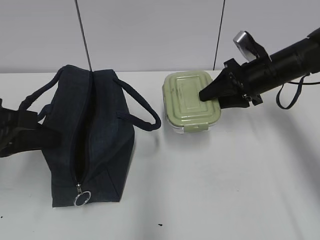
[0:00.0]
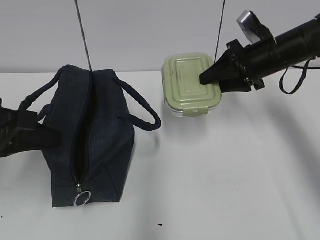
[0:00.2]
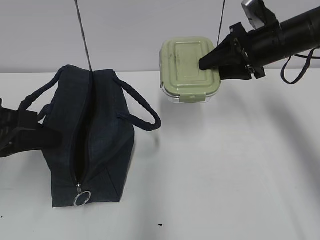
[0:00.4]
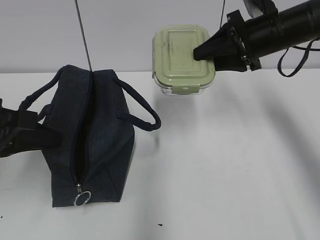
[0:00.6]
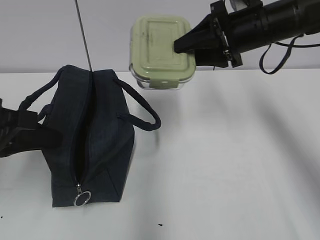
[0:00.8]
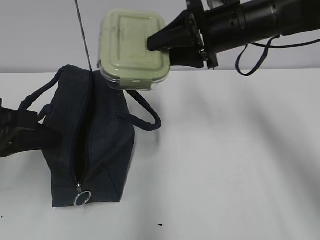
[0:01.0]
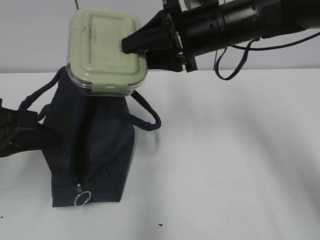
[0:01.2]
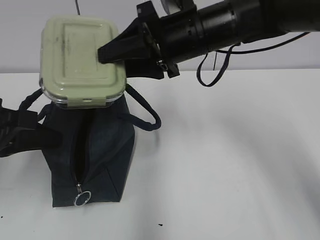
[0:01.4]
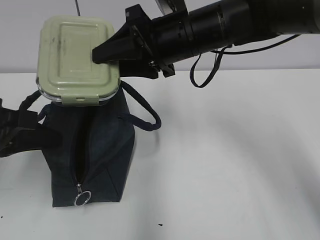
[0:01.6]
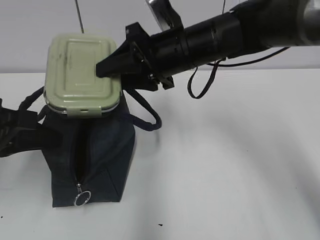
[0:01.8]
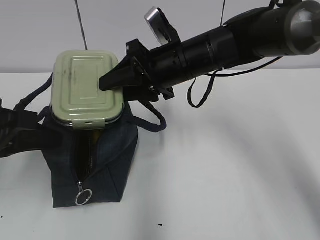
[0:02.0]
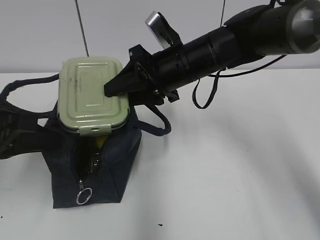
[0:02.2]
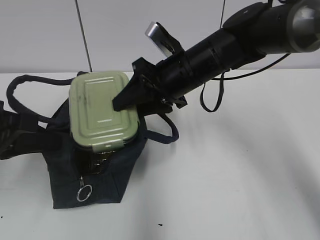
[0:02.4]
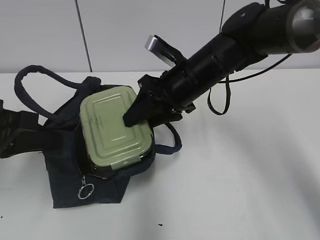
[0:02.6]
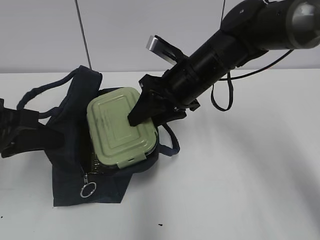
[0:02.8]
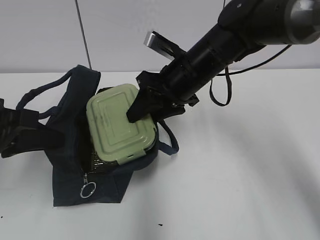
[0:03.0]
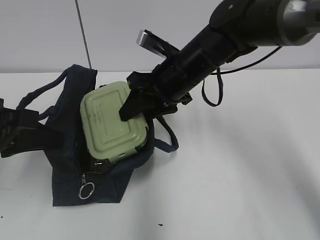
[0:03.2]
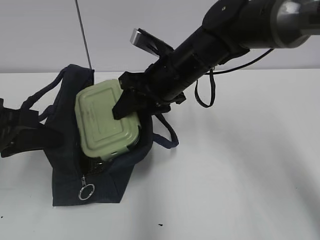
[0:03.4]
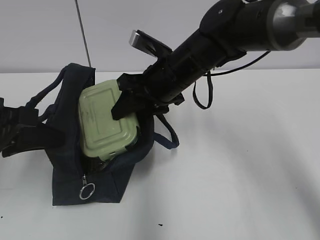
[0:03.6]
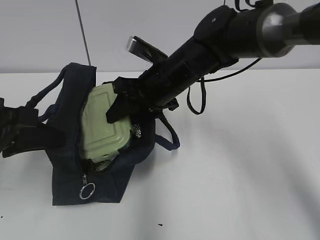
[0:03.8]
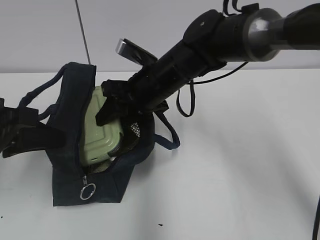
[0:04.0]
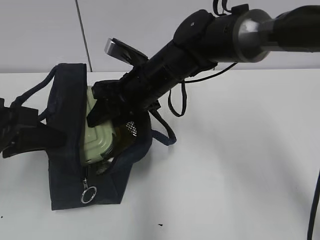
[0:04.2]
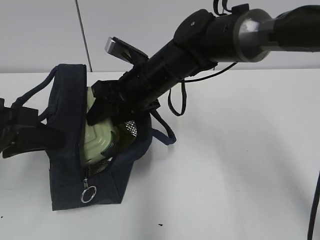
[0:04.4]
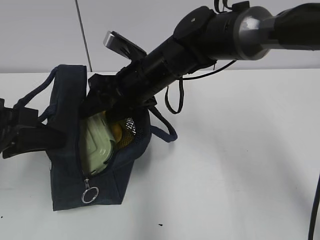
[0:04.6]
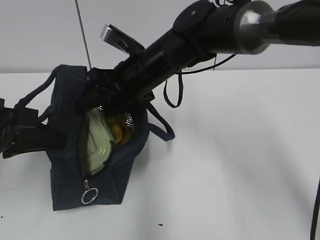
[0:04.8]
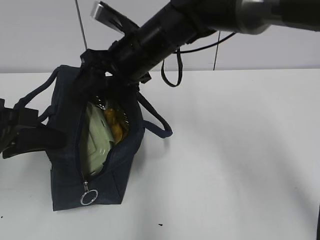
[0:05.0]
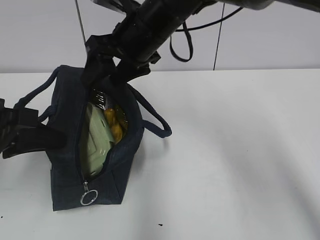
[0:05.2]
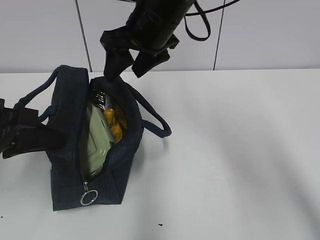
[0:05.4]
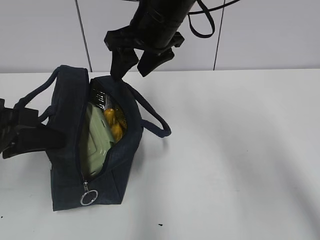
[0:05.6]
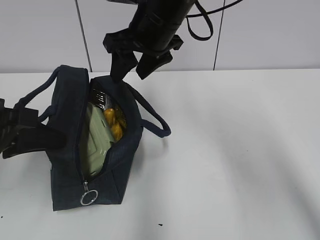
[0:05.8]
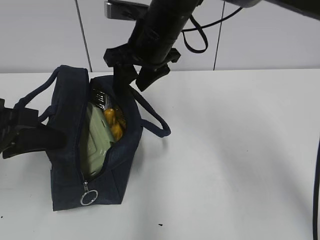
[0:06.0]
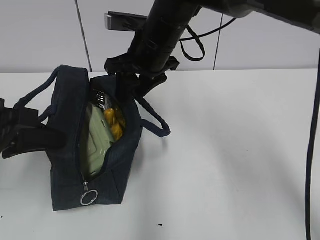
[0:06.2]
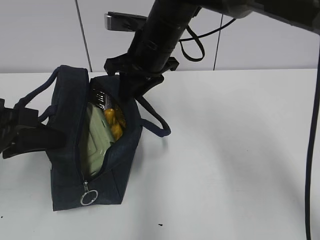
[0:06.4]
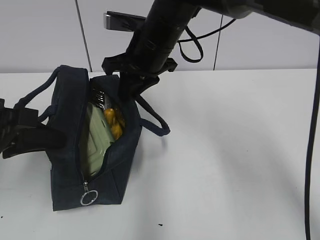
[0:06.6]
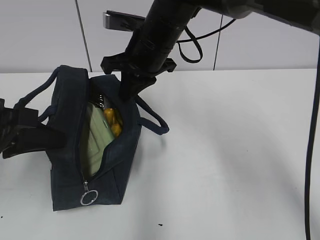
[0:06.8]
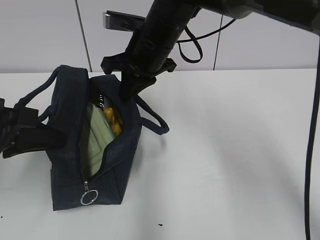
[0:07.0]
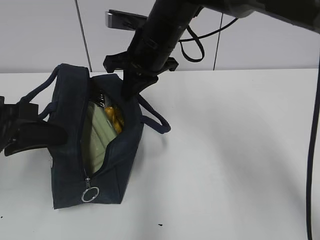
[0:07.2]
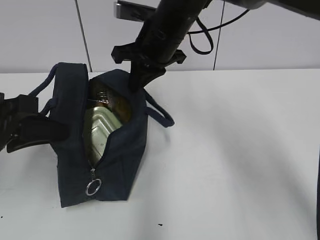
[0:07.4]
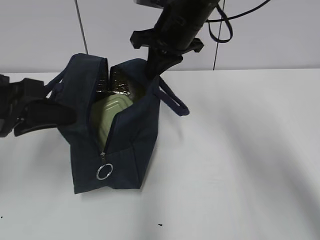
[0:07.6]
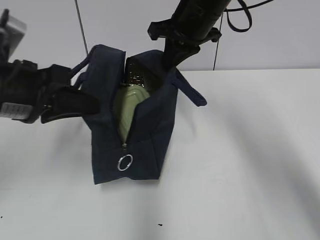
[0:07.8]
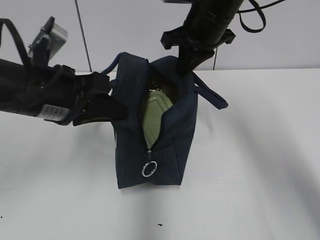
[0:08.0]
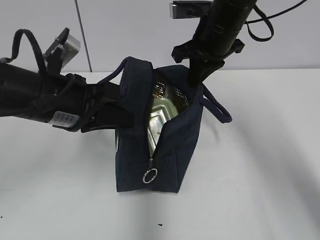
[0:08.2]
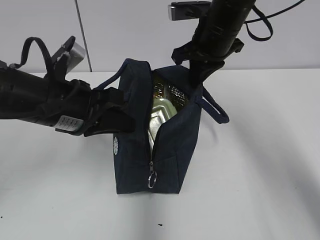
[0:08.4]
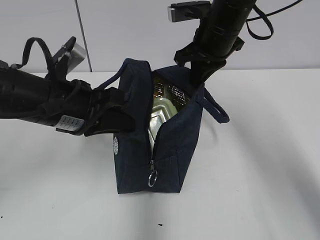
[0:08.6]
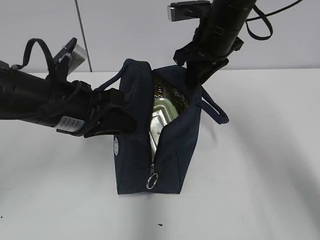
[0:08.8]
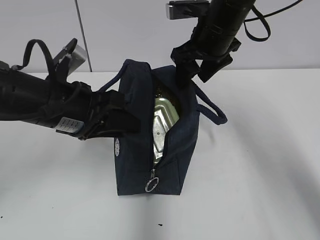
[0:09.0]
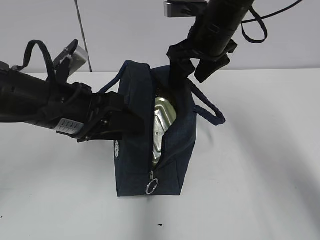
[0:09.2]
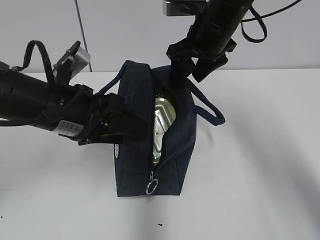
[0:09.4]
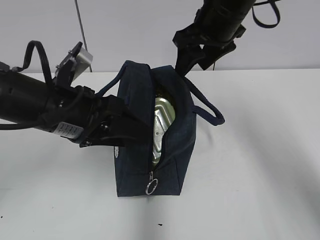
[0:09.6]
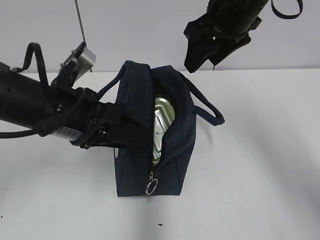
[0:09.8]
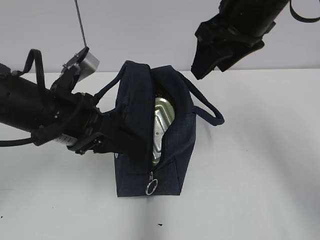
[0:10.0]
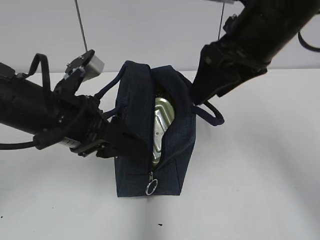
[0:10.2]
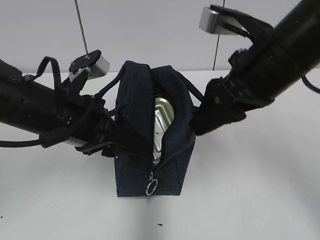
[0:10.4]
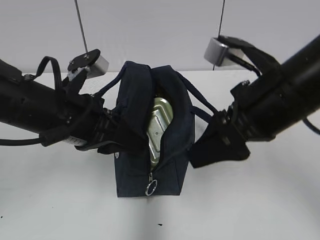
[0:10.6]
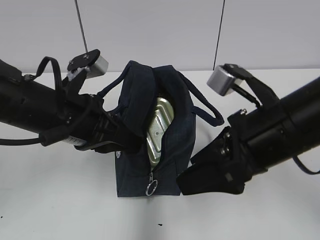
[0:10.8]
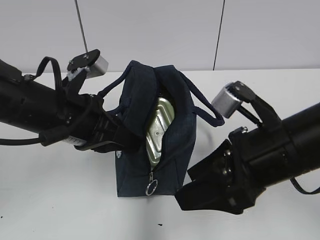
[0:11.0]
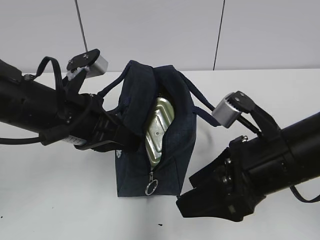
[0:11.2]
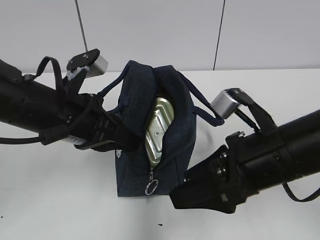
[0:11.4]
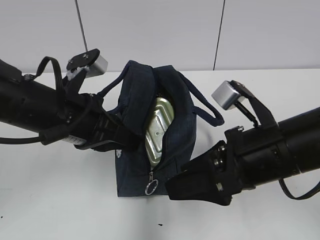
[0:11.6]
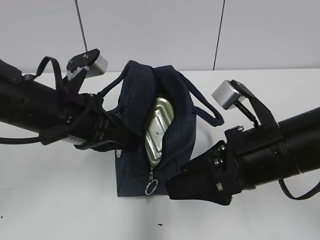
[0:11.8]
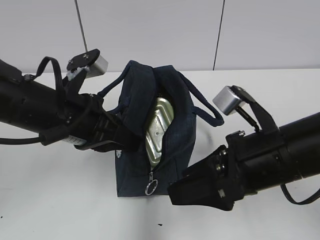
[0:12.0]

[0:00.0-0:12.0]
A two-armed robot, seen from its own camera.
0:00.0 to 0:01.6: The right gripper shifts about 20 cm to the left and upward.
0:01.6 to 0:03.0: The right gripper heads downward, covering some 5 cm.
0:03.0 to 0:04.4: The right gripper moves to the left, about 5 cm.
0:04.4 to 0:06.0: The right gripper travels upward by roughly 5 cm.
0:06.0 to 0:07.6: The right gripper is displaced to the right by about 5 cm, and closes its fingers.
0:07.6 to 0:09.0: The right gripper opens its fingers, while the left gripper travels to the right by roughly 5 cm, and opens.
0:09.0 to 0:10.4: The right gripper goes about 15 cm backward.
0:10.4 to 0:12.0: The right gripper travels downward and backward by about 10 cm; the left gripper closes its fingers.

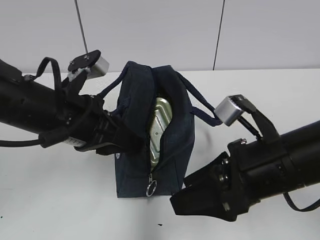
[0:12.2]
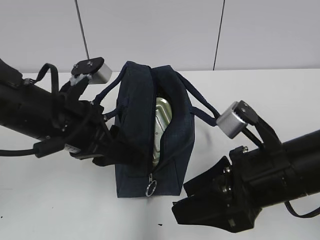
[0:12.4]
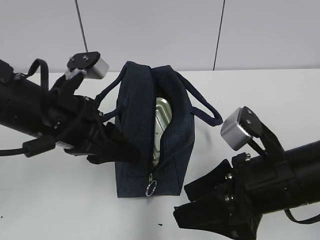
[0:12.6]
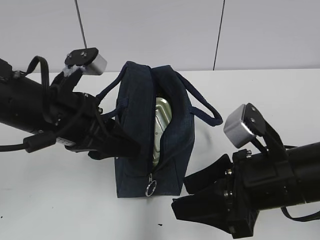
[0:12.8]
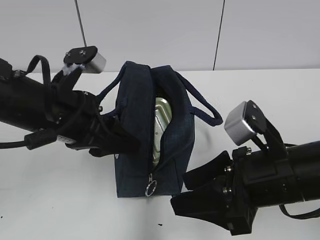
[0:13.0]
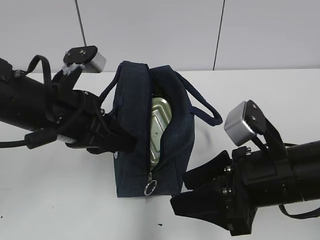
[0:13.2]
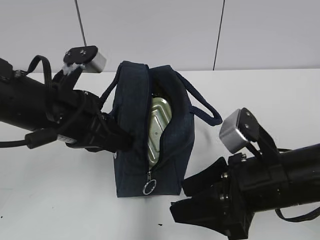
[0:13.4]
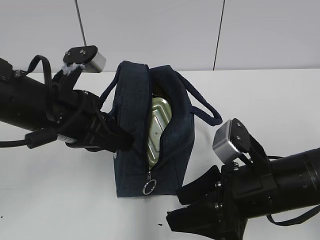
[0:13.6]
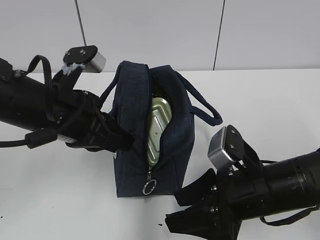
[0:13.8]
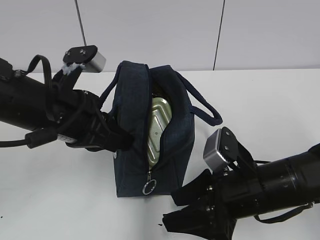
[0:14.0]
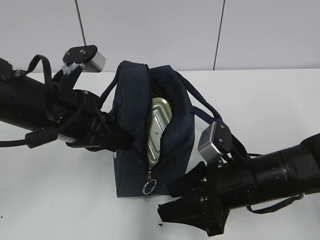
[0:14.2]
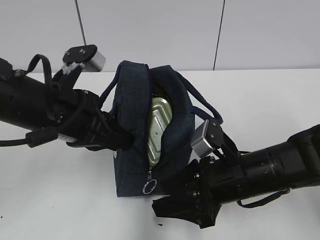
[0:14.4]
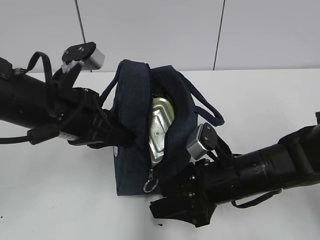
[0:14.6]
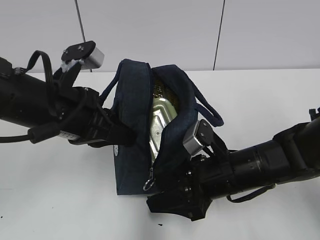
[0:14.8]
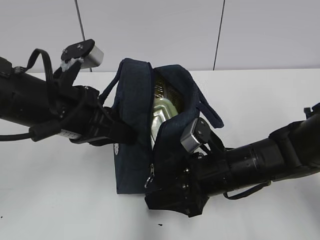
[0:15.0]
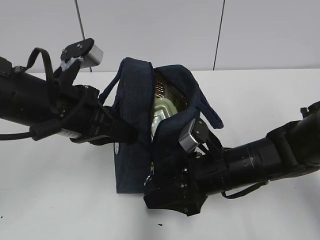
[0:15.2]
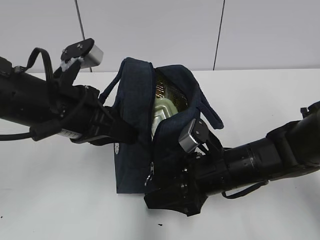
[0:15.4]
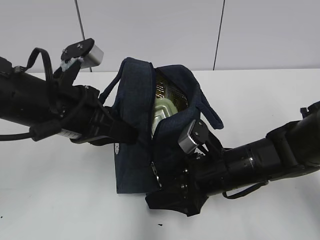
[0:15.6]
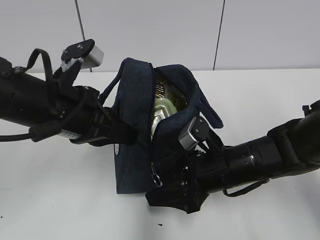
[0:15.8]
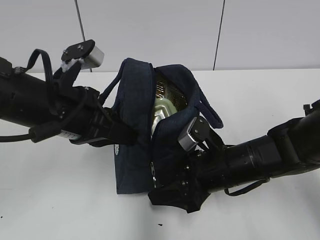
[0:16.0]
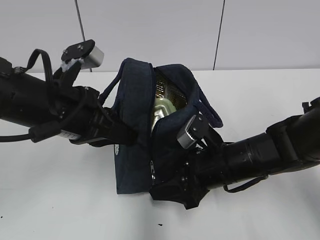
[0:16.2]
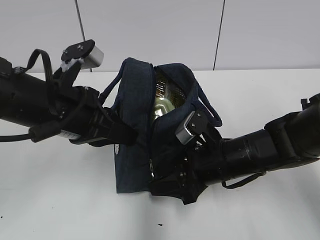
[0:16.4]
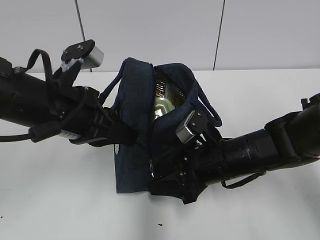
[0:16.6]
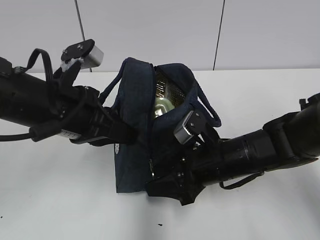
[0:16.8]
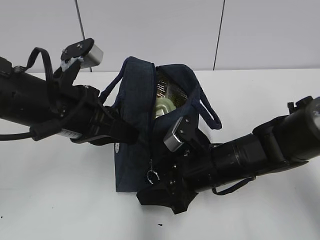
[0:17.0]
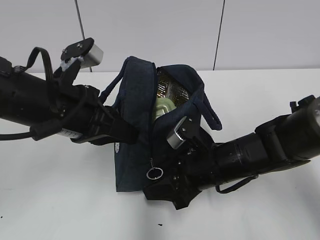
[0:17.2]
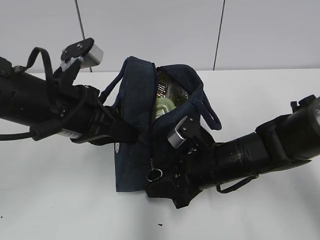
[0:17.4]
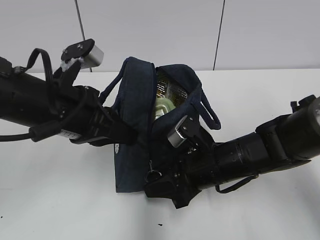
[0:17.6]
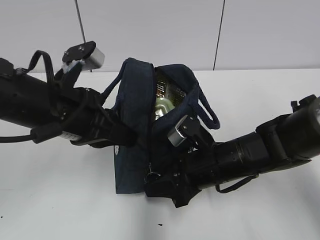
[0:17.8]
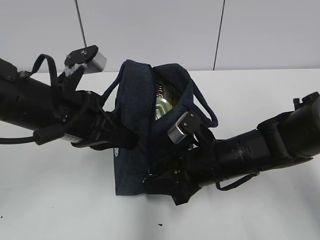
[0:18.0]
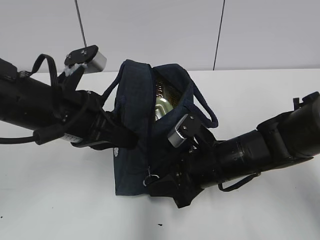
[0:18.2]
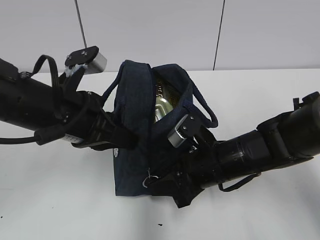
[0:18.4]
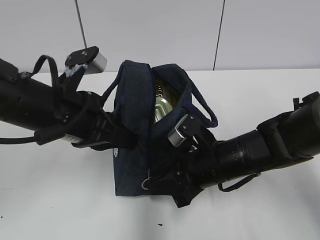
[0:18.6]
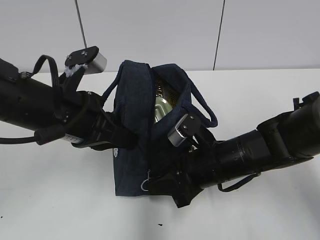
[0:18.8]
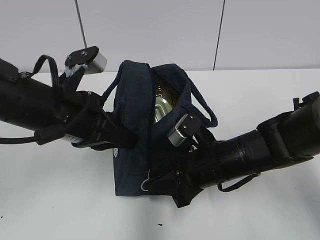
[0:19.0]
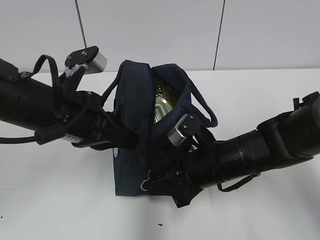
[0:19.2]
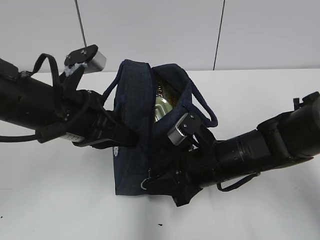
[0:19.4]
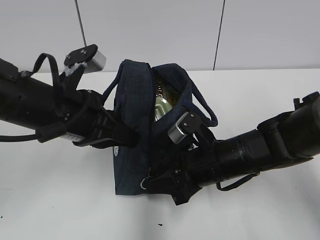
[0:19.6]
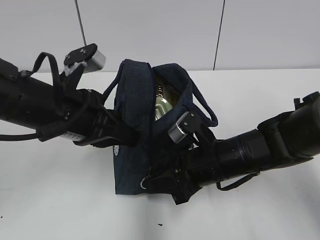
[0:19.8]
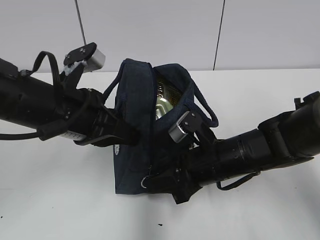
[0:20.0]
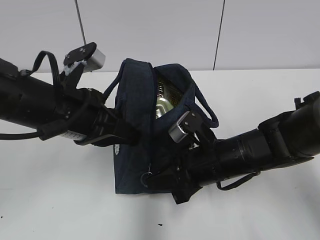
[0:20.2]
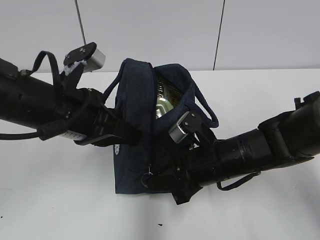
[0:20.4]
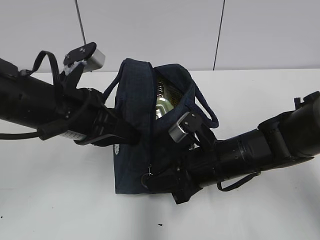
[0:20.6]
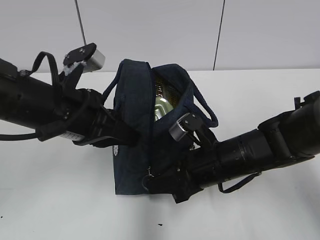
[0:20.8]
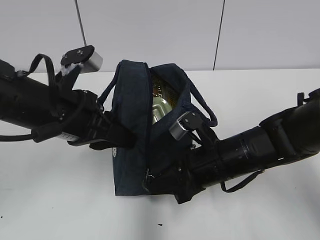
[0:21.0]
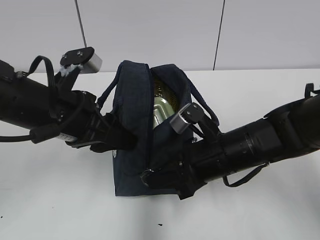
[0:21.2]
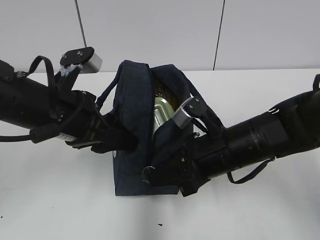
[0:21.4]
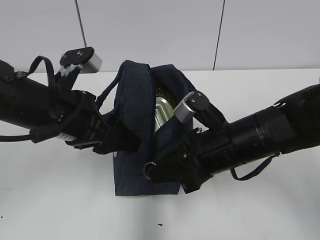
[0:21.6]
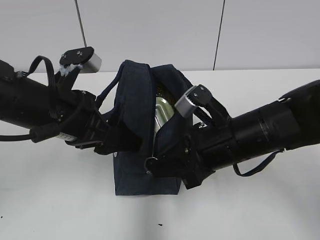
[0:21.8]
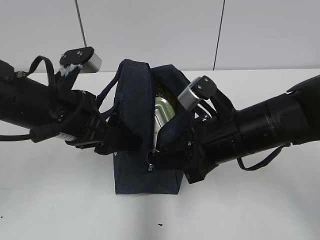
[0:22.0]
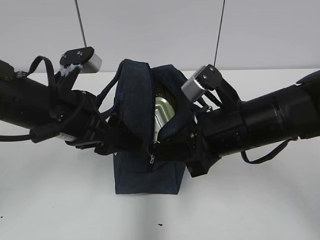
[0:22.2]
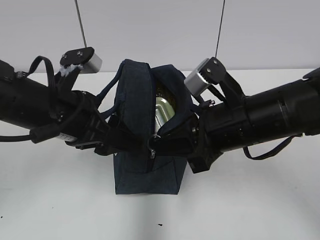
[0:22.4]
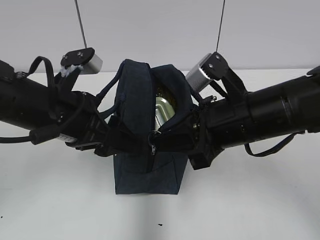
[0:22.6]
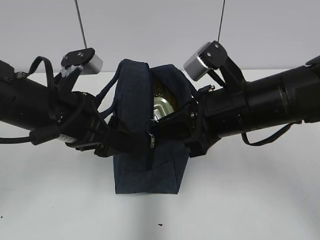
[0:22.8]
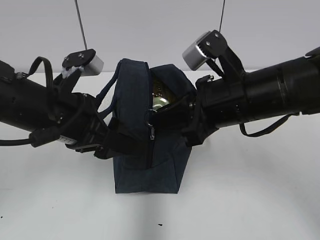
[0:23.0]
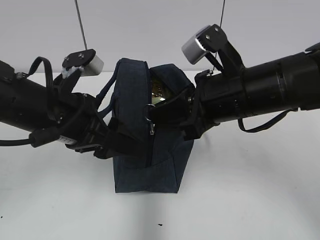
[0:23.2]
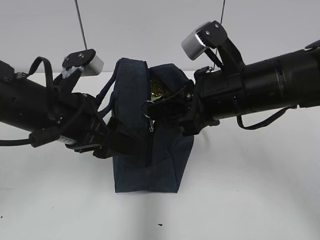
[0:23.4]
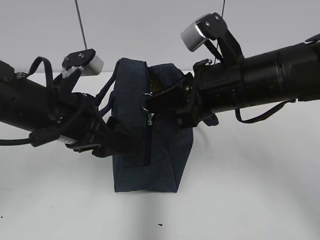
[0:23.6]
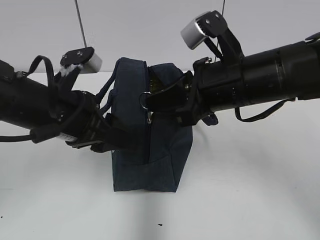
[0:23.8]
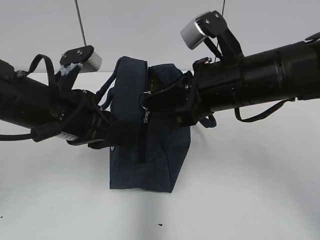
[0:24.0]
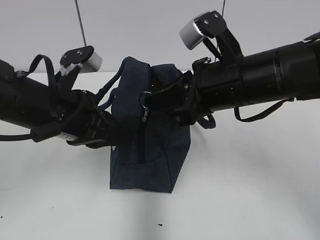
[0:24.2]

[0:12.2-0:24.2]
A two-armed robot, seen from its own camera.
0:12.2 to 0:13.8: The right gripper shifts about 5 cm downward.
0:13.8 to 0:15.2: The right gripper heads forward, covering approximately 5 cm.
0:15.2 to 0:18.2: There are only small adjustments of the grippers.
0:18.2 to 0:19.8: The two grippers keep their place.
0:19.8 to 0:21.2: The left gripper opens its fingers.
0:21.2 to 0:22.6: The right gripper is displaced upward by about 10 cm.
0:22.6 to 0:24.2: The left gripper closes its fingers.
